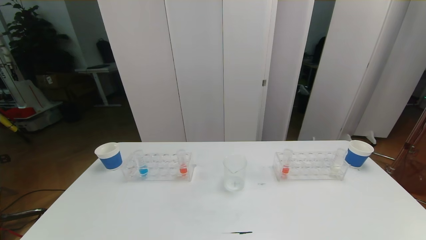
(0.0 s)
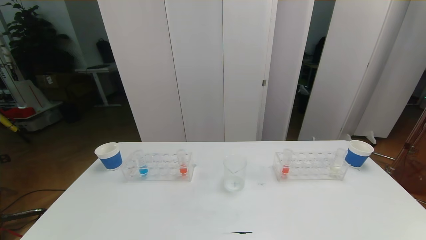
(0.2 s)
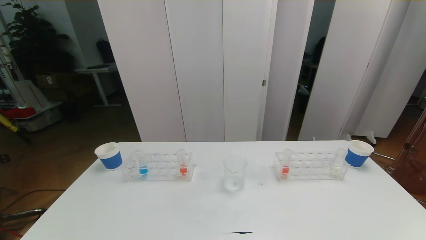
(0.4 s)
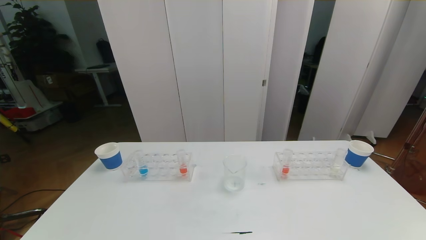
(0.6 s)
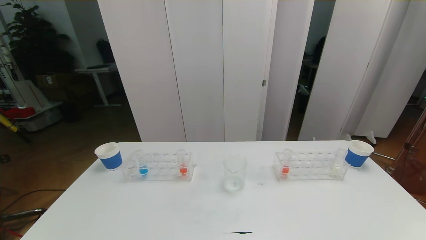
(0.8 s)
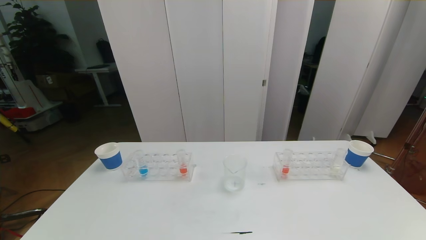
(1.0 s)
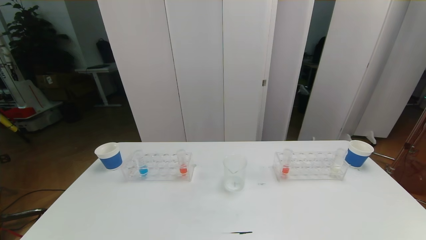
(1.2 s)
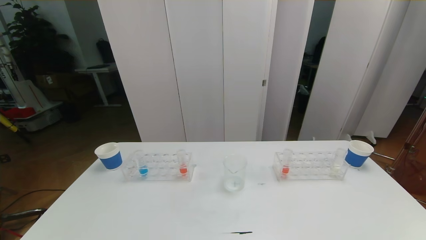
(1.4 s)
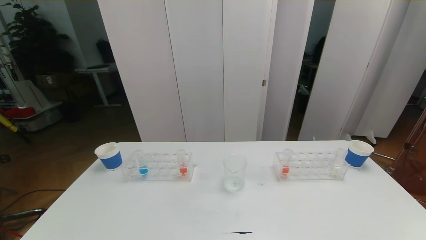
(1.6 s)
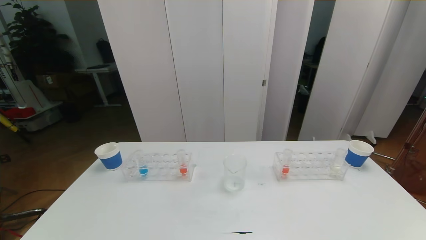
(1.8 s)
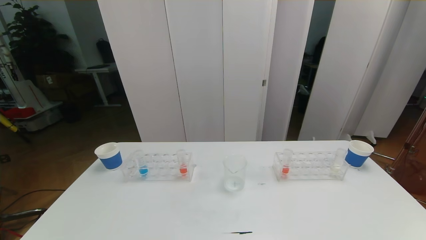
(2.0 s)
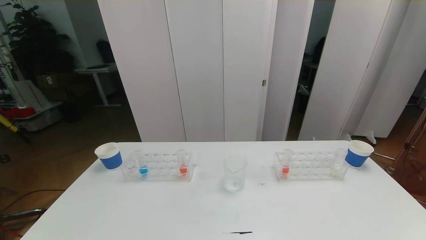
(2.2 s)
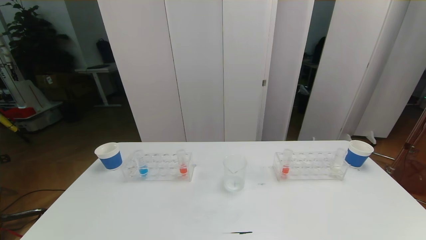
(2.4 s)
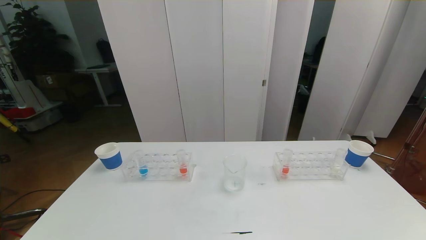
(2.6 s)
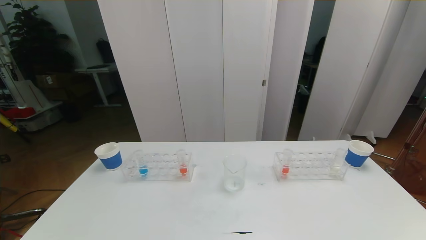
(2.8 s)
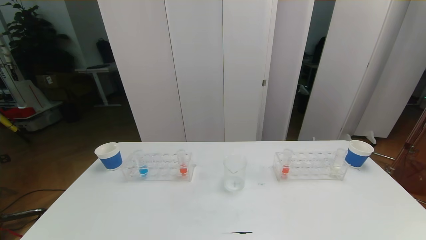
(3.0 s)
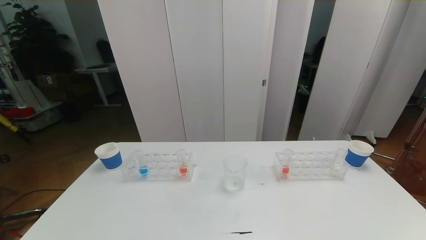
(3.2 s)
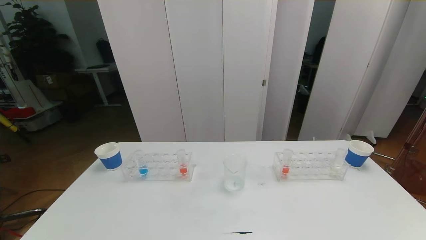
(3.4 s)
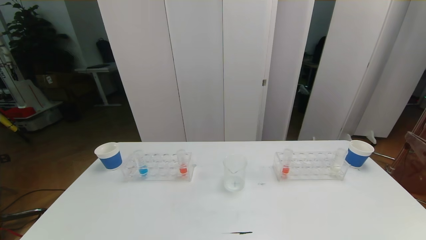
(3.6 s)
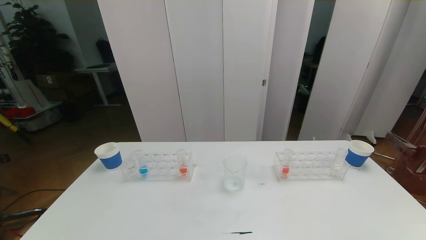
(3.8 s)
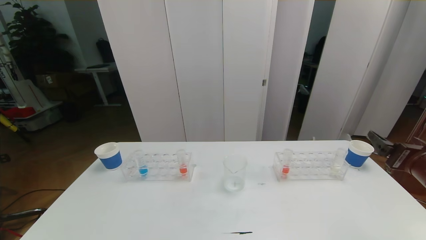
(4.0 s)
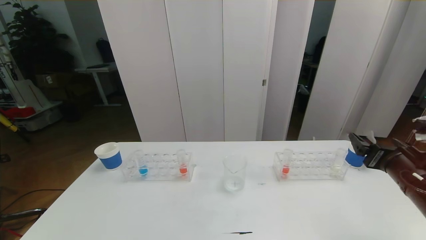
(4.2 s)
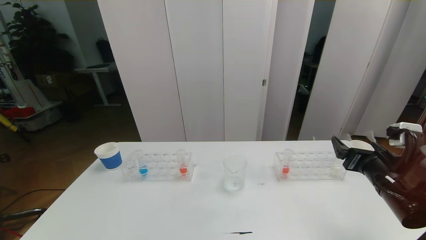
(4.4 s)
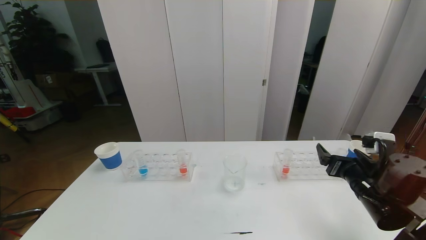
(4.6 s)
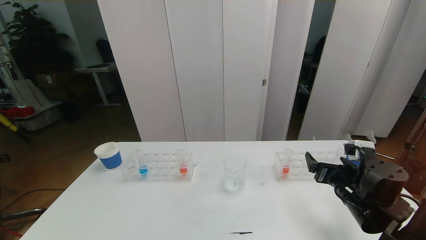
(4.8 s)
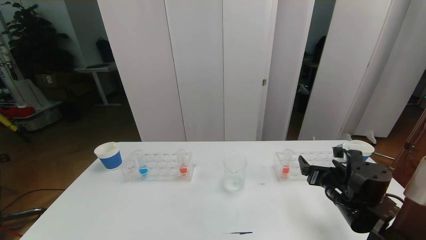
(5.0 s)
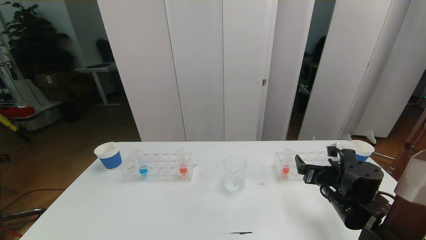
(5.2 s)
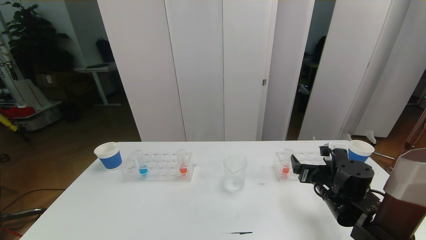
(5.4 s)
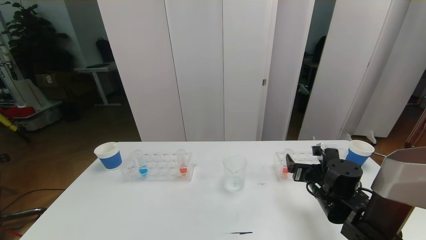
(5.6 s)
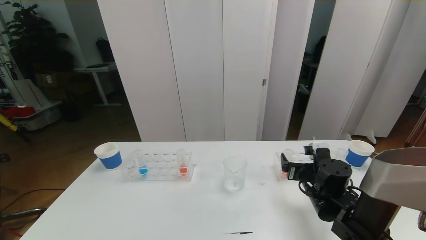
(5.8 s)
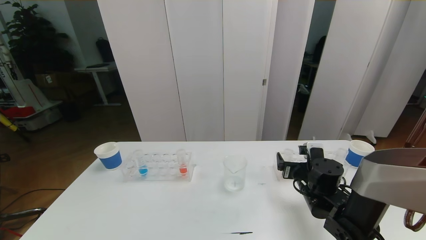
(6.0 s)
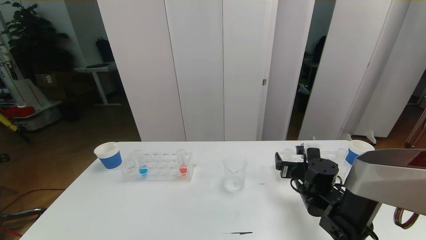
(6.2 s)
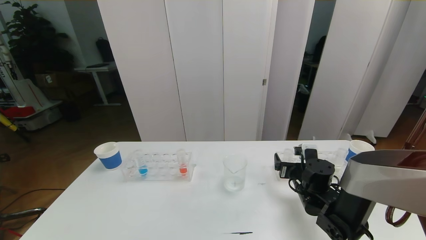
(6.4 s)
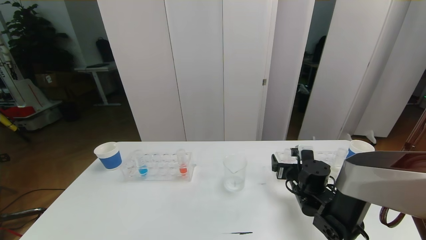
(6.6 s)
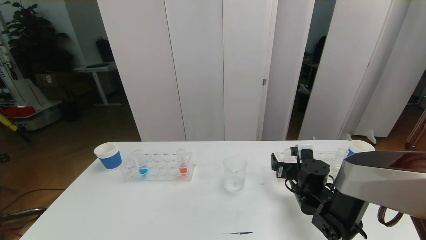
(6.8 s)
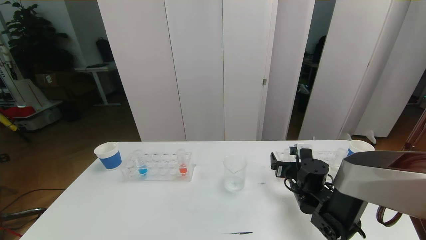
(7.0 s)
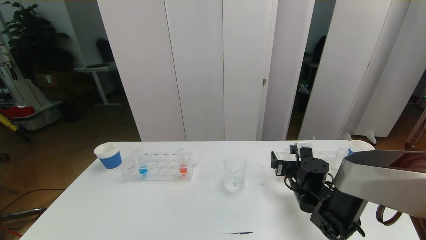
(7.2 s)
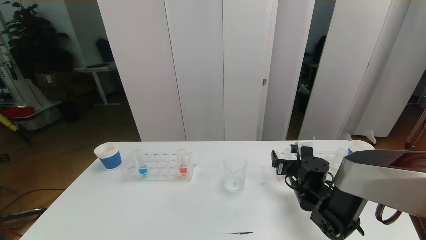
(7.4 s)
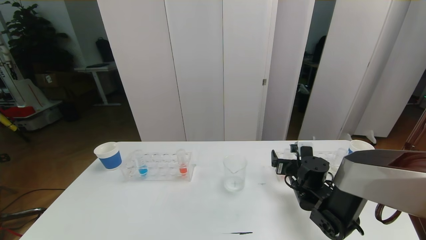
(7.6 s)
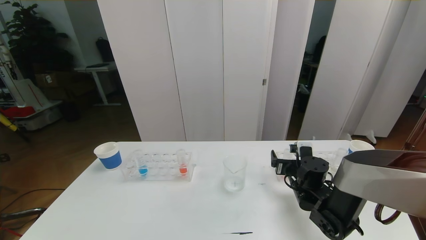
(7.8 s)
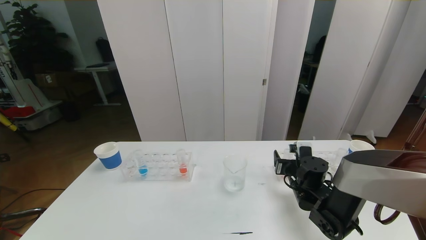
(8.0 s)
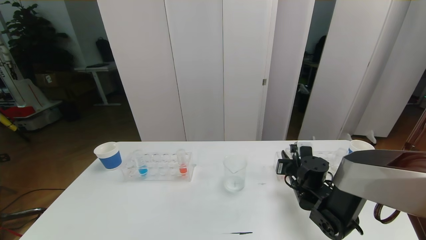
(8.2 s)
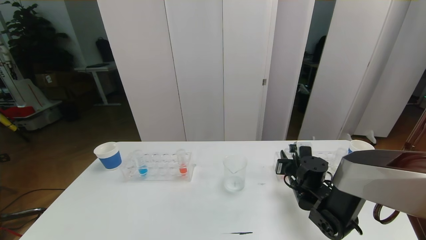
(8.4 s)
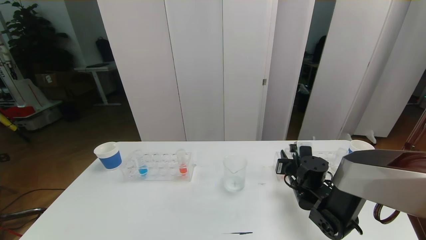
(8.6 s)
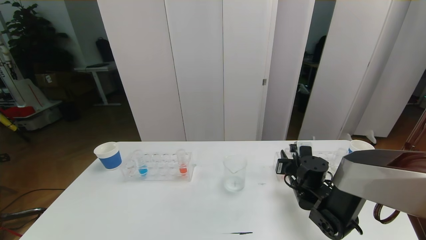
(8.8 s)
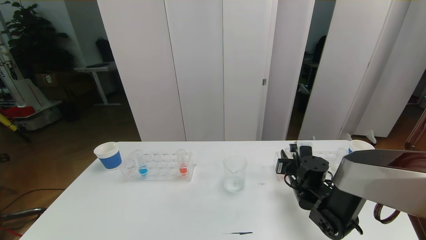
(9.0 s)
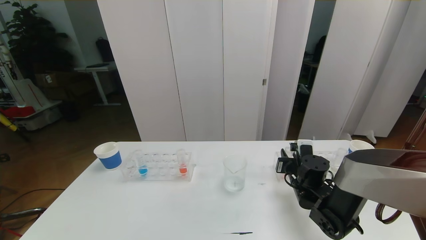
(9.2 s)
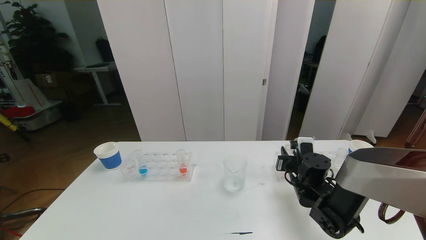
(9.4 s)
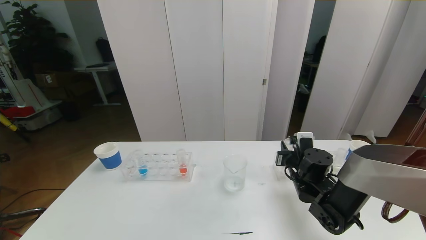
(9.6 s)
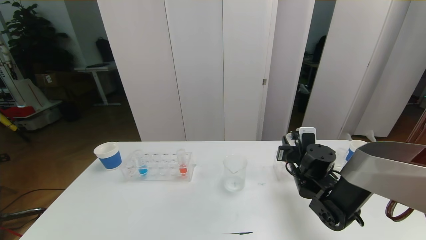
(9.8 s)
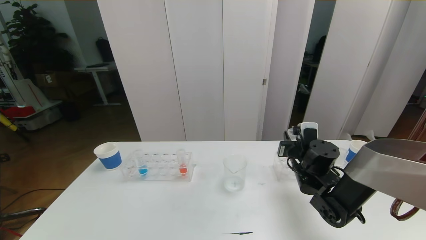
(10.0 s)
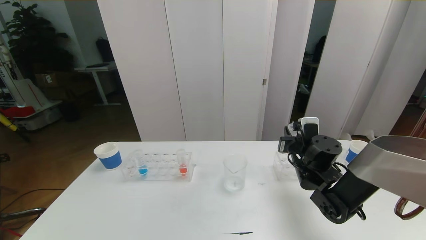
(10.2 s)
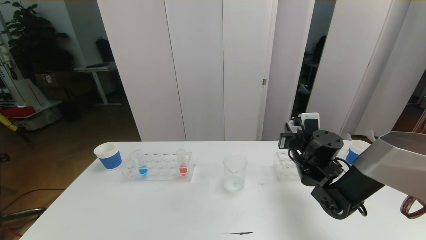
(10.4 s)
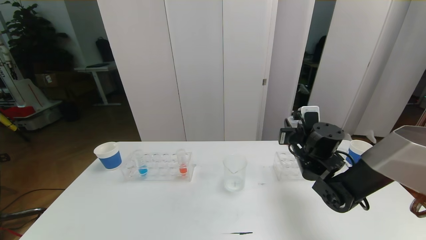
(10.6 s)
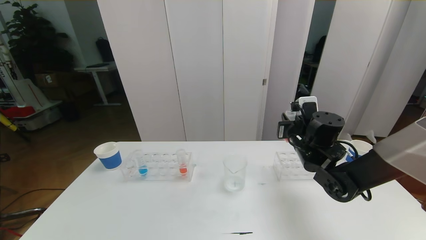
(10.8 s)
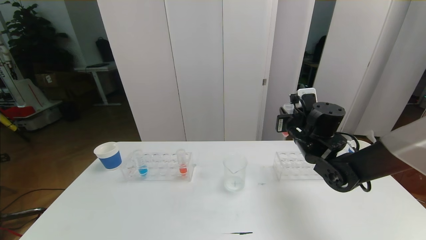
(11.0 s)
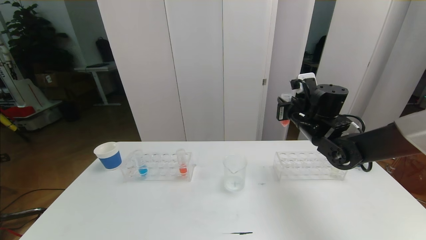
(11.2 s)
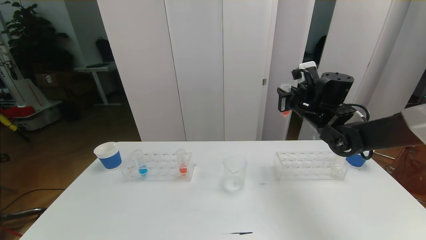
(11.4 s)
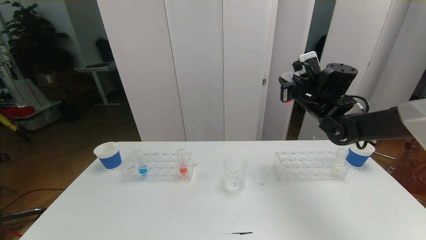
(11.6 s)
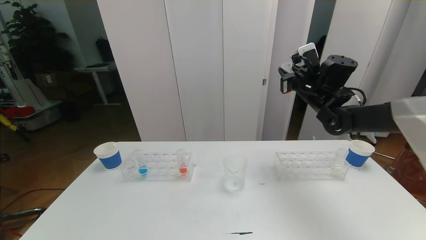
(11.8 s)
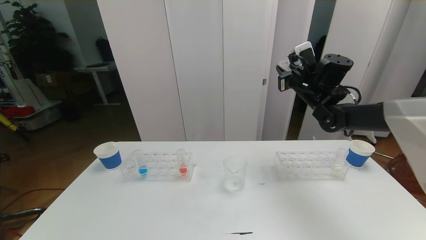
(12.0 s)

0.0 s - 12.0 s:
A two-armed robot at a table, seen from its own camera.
Task of the whole recording: pick up the test tube with red pigment the test tube with blue pigment and the test tube with white pigment by grippers and pour them into the beaker.
0.0 s - 1.6 s: Both grippers stay put.
3.0 s - 4.4 s: The right gripper goes about 20 cm forward.
4.4 s - 6.0 s: The right gripper travels downward, to the left and forward by some 15 cm.
6.0 s - 7.6 s: The grippers move only a little.
7.6 s - 9.0 s: The right gripper closes its fingers.
9.0 s - 10.4 s: The right gripper is displaced upward by some 10 cm.
10.4 s - 12.0 s: The right gripper moves upward and forward, some 20 cm.

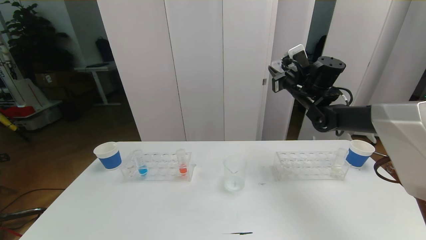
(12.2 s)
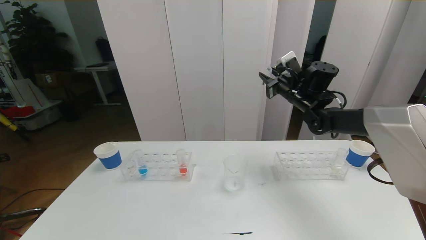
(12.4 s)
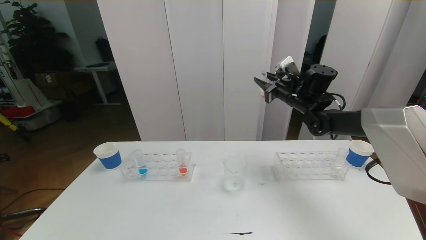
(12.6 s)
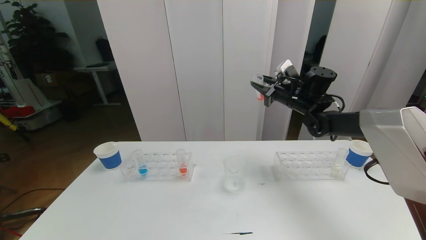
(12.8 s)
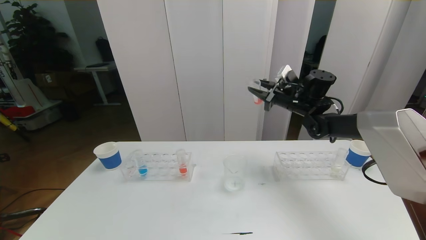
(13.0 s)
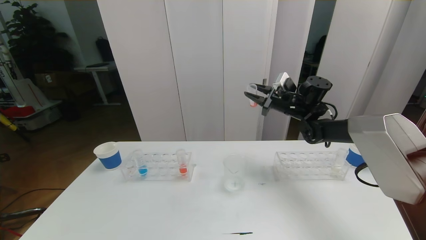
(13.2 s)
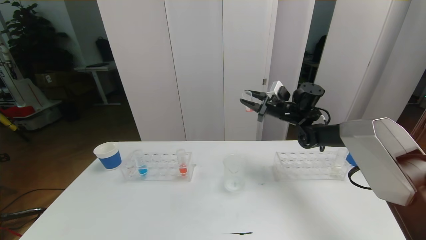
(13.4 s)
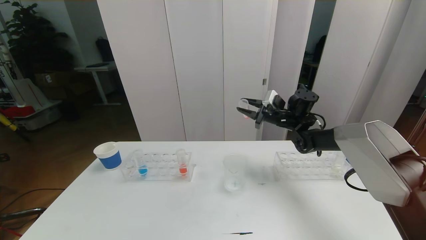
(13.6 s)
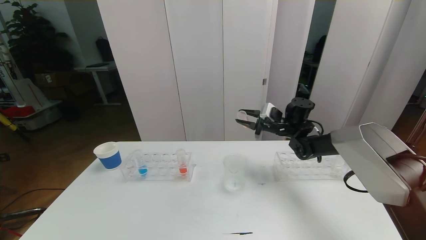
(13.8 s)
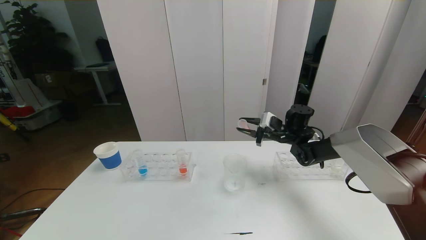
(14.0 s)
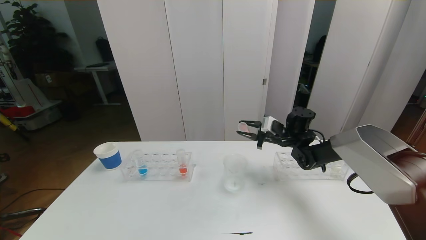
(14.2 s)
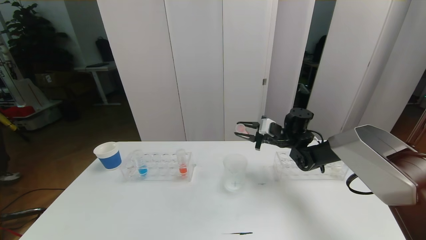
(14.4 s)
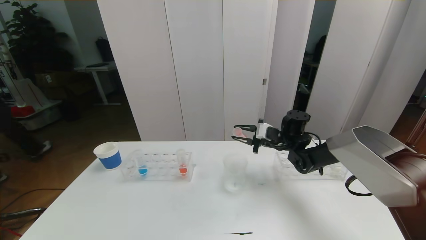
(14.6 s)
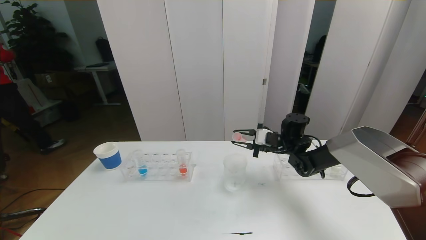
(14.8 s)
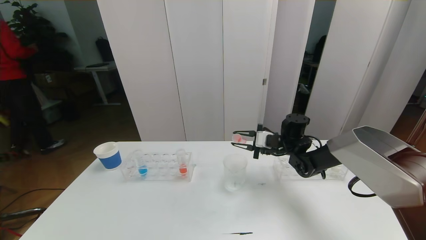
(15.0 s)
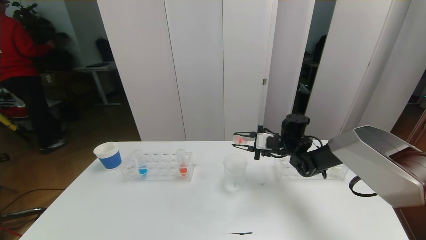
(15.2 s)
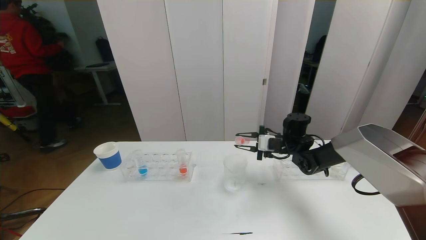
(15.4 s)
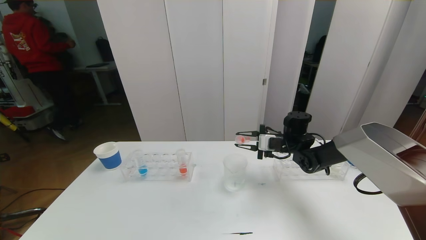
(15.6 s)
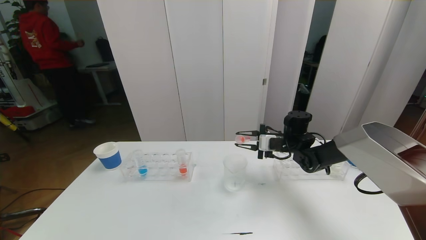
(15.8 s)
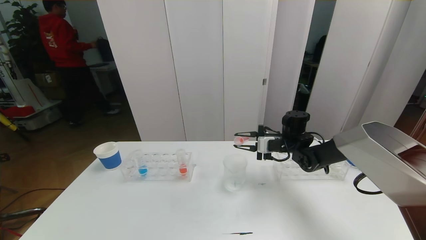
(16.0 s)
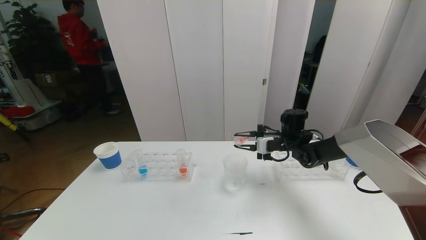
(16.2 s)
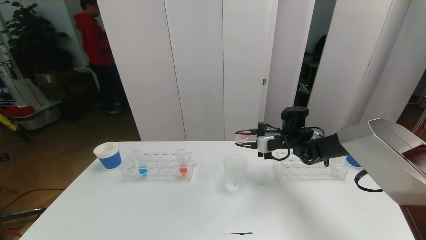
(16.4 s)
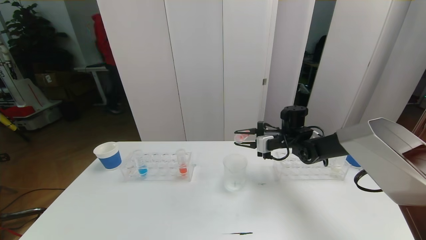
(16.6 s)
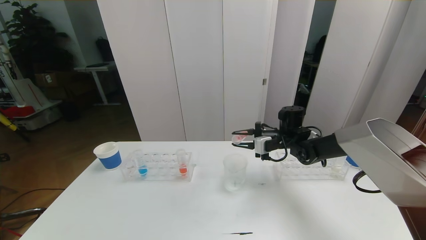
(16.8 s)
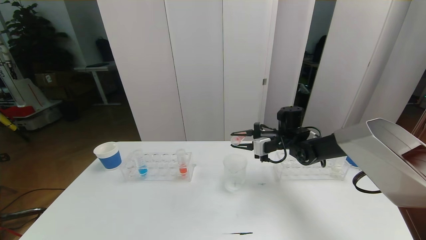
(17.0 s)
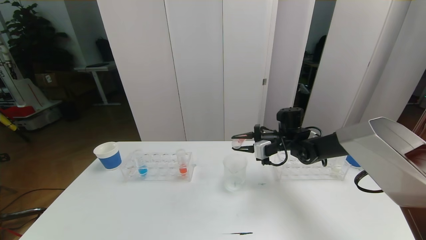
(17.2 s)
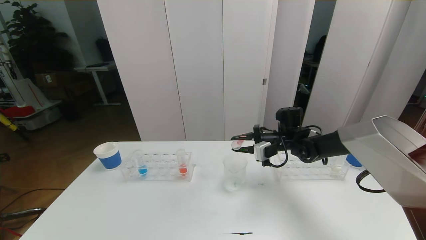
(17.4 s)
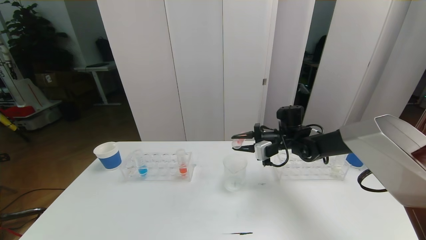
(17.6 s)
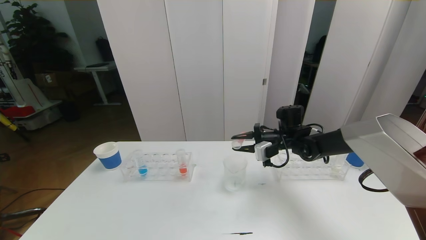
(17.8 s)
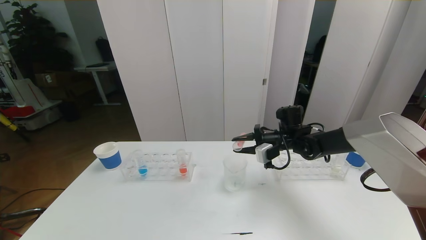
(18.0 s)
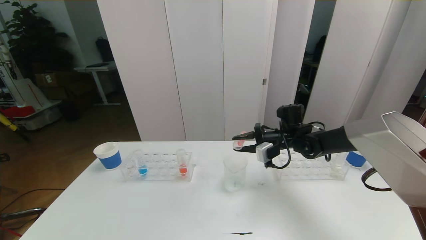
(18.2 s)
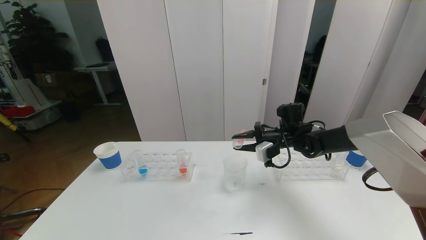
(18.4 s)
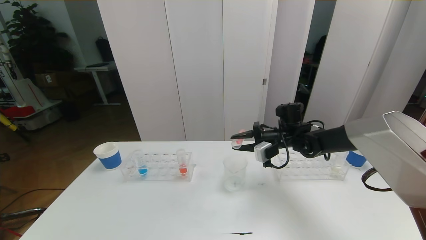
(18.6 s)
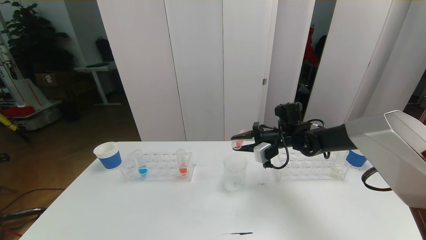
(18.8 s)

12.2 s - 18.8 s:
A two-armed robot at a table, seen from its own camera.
Task of the whole recording: pick up the test tube with red pigment the test tube with blue pigment and the test tube with white pigment by grippers and pour them into the beaker.
12.2 s - 13.8 s: The right gripper moves downward, some 10 cm.
13.8 s - 15.4 s: The grippers make only small movements.
15.4 s - 17.2 s: The grippers stay close to where they were, moving slightly.
17.2 s - 18.8 s: The grippers make only small movements.
